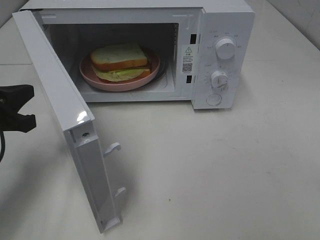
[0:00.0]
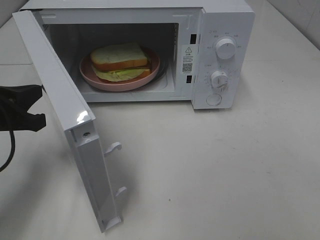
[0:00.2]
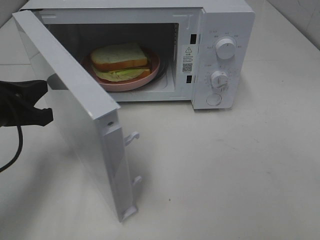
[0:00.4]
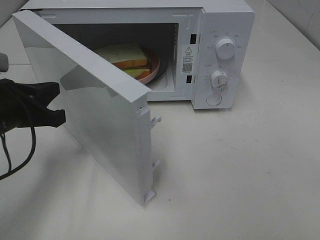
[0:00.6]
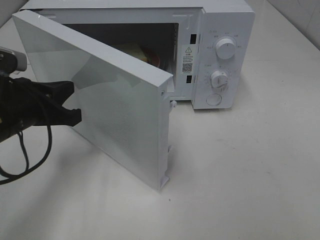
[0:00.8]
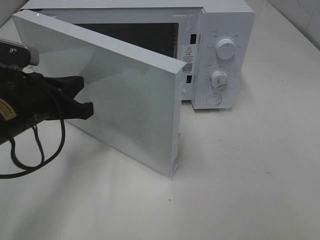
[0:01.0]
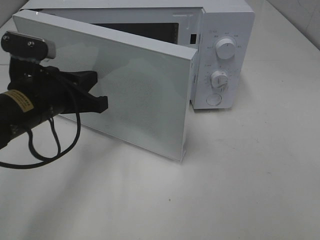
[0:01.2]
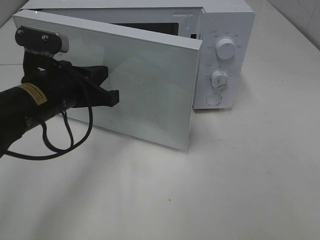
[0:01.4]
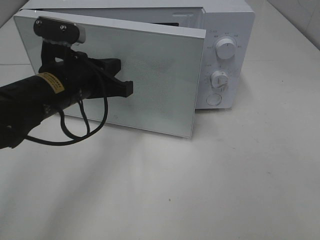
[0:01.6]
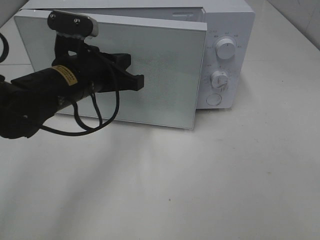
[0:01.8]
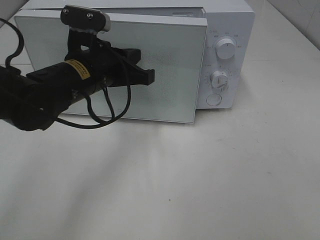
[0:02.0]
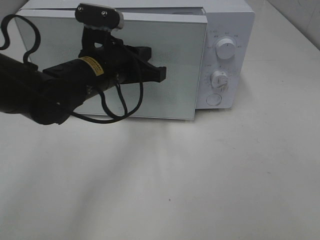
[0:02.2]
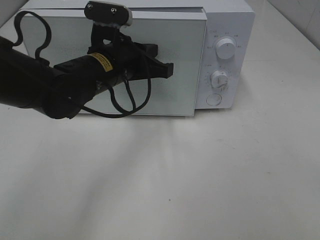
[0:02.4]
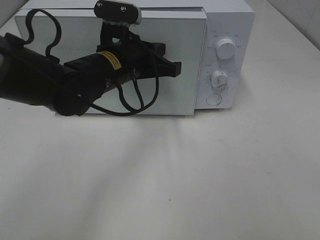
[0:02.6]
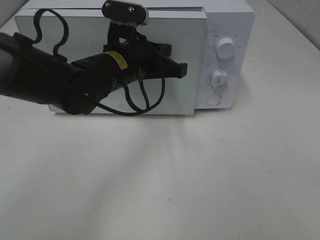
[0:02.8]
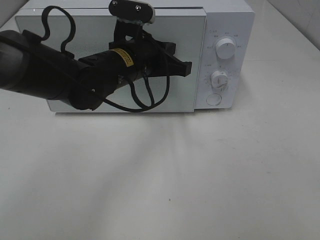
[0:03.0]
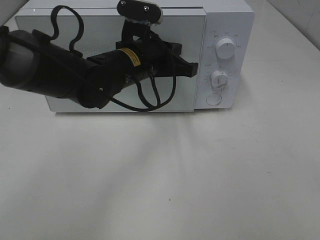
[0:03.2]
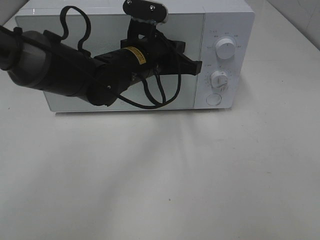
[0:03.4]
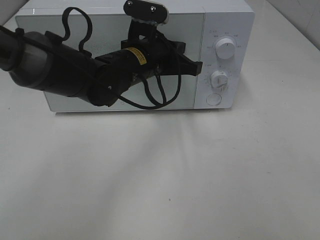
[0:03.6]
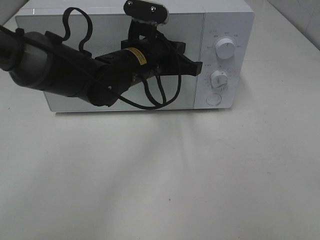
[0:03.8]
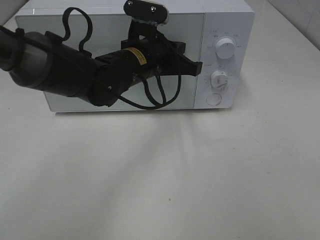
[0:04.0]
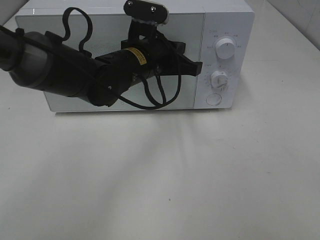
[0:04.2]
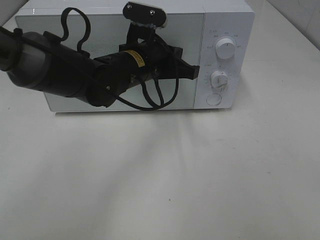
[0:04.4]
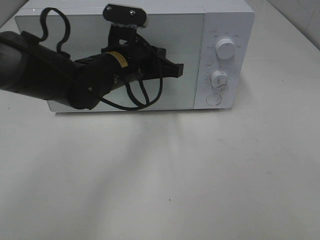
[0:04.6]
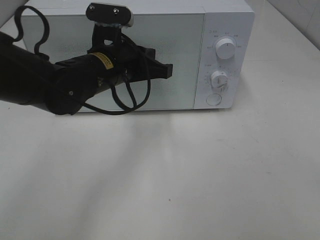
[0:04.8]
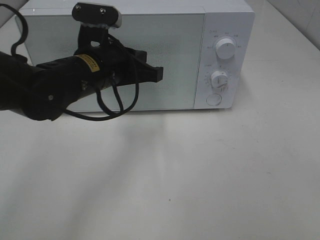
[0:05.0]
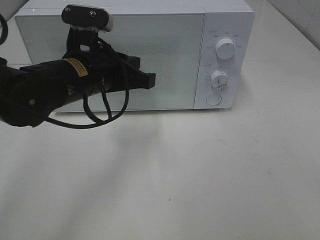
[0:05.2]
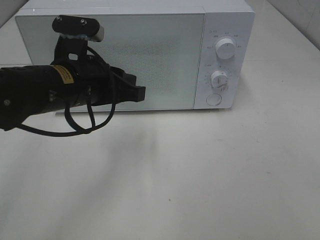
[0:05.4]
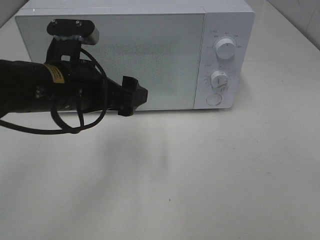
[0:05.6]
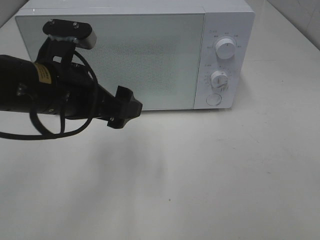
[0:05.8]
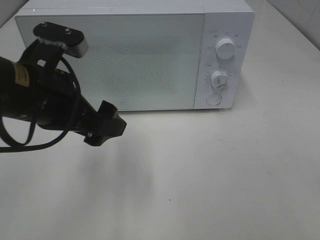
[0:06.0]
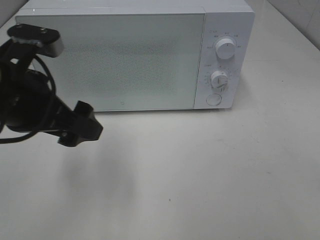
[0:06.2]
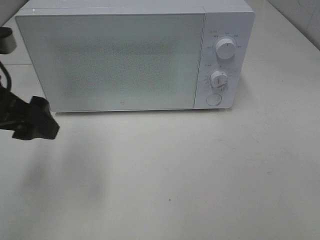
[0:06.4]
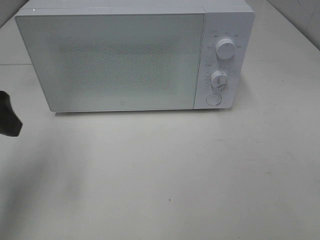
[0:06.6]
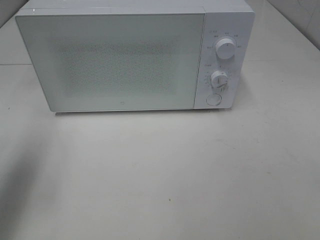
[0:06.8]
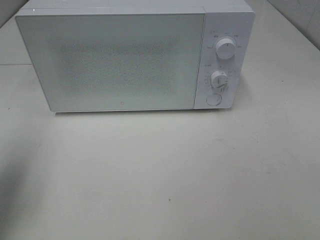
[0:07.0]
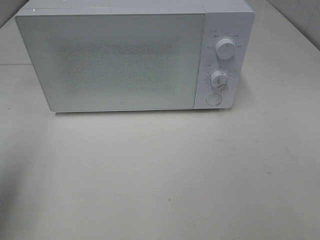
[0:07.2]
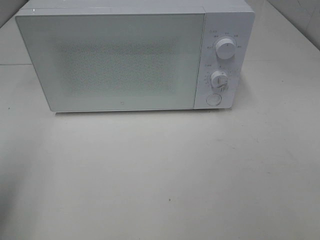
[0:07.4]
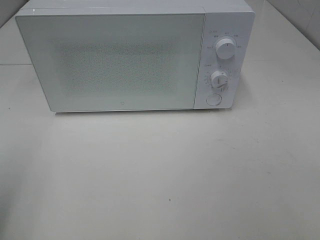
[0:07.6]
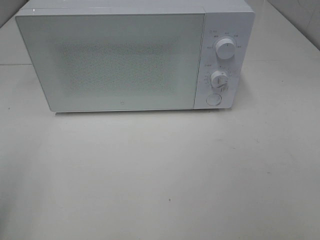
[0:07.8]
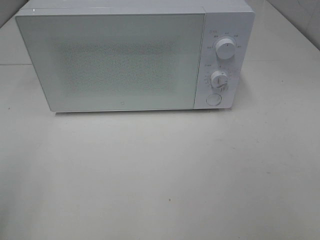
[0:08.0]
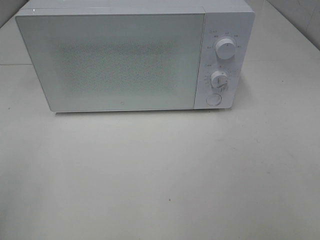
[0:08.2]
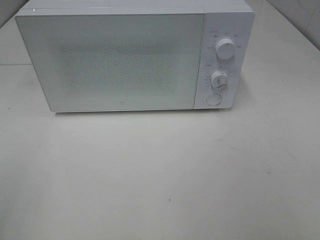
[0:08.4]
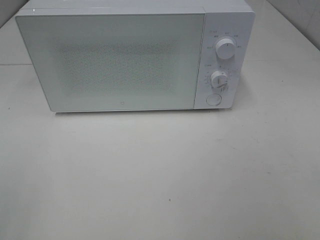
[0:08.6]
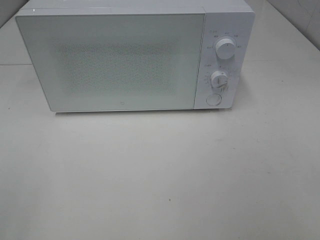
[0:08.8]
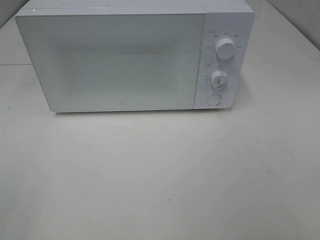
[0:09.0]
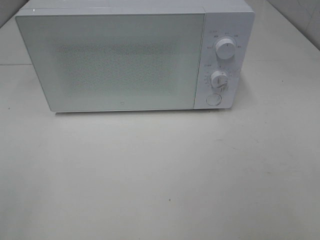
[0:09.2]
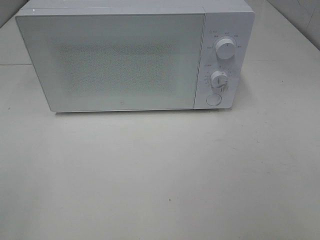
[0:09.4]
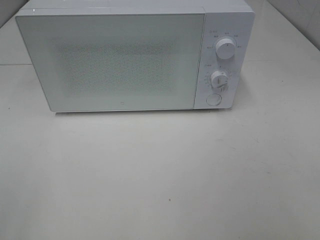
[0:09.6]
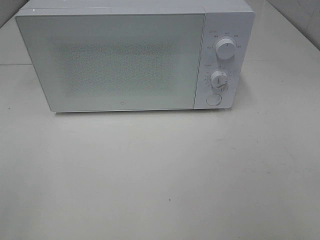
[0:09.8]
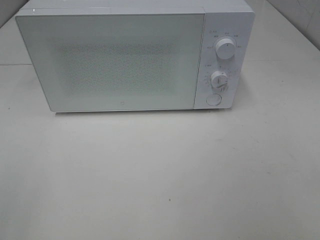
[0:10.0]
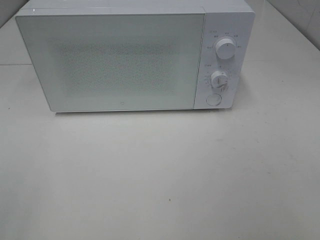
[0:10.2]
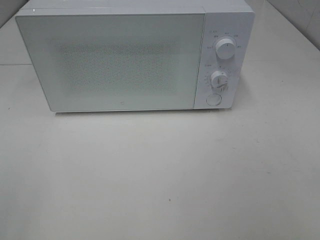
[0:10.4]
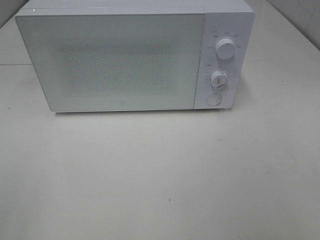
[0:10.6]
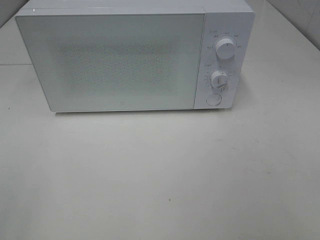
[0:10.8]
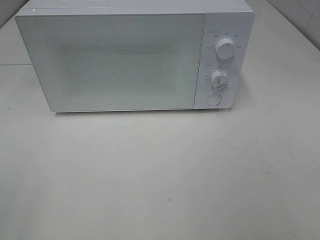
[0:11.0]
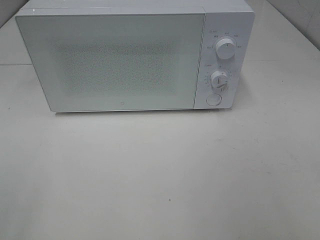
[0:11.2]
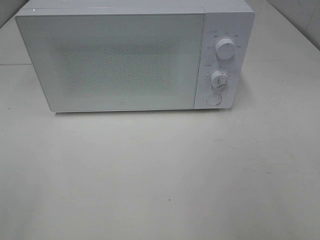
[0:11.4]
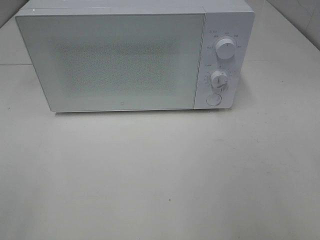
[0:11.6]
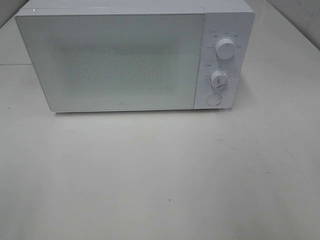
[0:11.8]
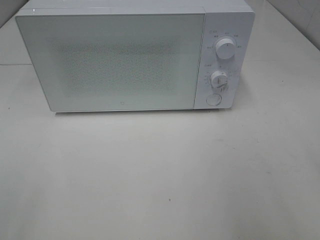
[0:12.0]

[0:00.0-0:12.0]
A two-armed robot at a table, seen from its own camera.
Task of the whole recording: Heat Sandwich.
Step, 0:00.0 to 0:04.8: Left hand: close the microwave door.
0:00.0 to 0:01.6: The left gripper shifts roughly 15 cm to the right.
0:01.6 to 0:03.0: The left gripper moves to the right and forward, about 10 cm.
0:03.0 to 0:04.4: The grippers move only a little.
0:04.4 to 0:06.0: The left gripper heads backward, to the left and upward, covering some 20 cm, and opens up.
0:06.0 to 0:07.6: The left gripper heads to the left and backward, covering roughly 20 cm.
0:09.0 to 0:10.4: Neither gripper changes place.

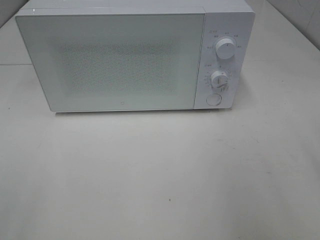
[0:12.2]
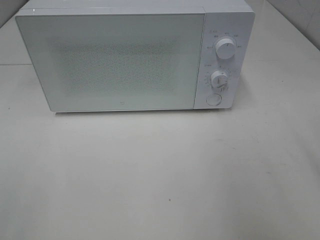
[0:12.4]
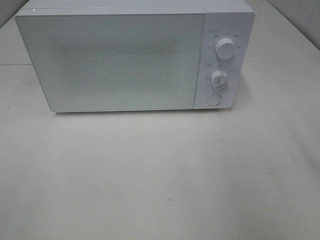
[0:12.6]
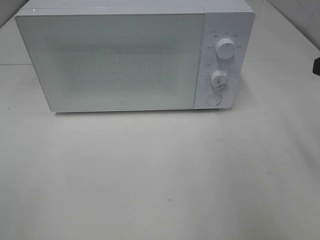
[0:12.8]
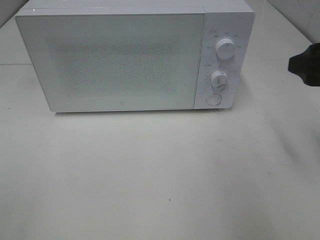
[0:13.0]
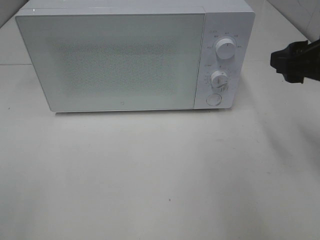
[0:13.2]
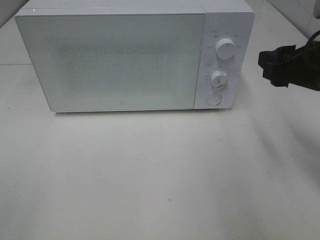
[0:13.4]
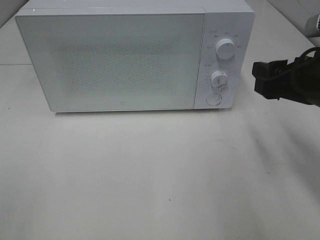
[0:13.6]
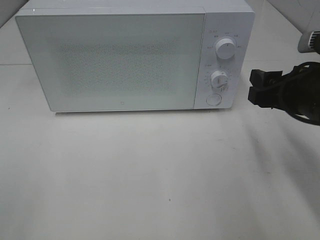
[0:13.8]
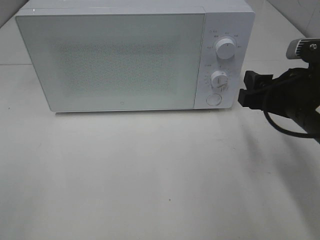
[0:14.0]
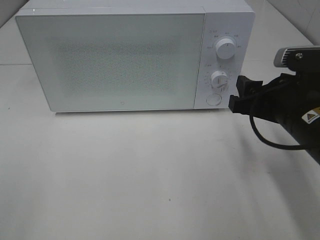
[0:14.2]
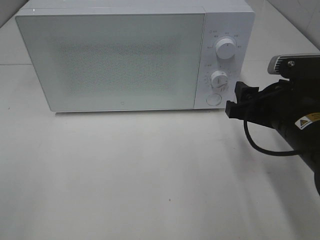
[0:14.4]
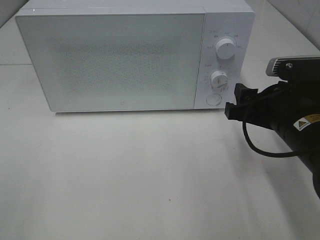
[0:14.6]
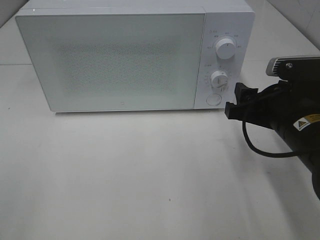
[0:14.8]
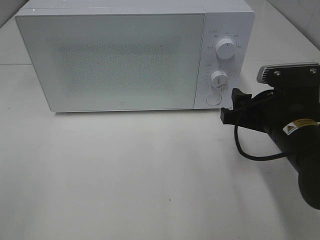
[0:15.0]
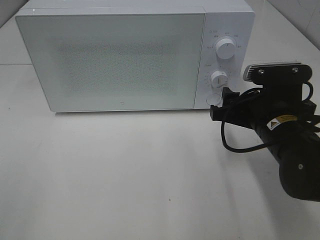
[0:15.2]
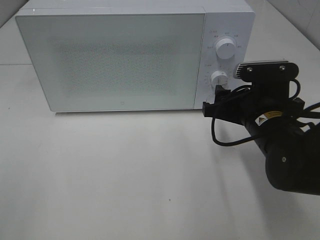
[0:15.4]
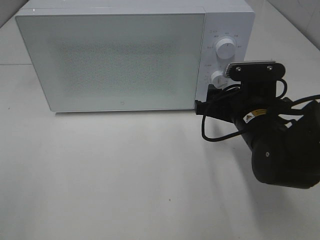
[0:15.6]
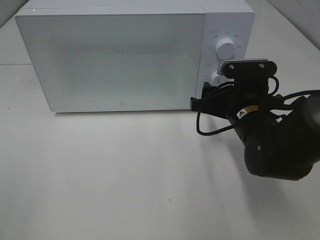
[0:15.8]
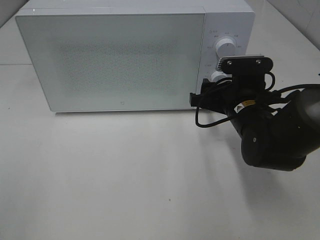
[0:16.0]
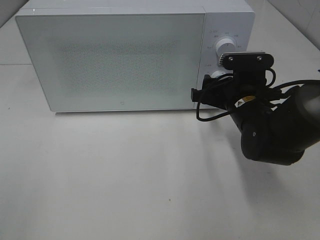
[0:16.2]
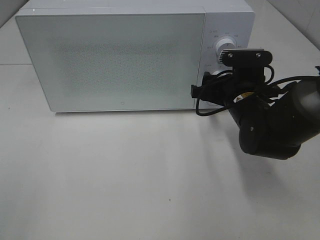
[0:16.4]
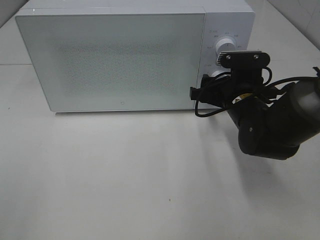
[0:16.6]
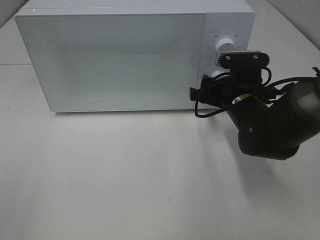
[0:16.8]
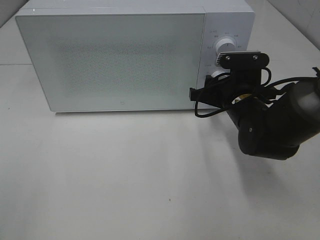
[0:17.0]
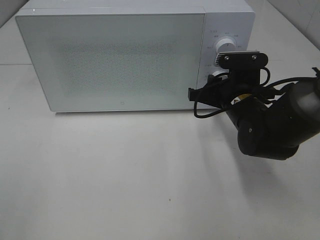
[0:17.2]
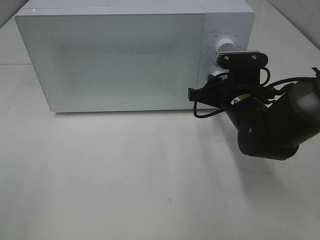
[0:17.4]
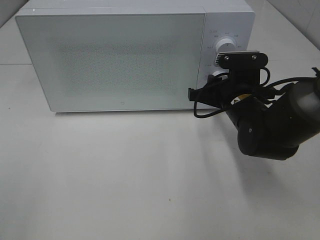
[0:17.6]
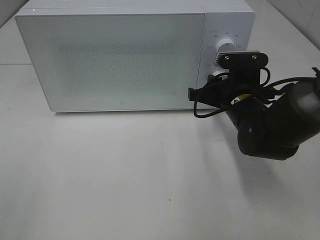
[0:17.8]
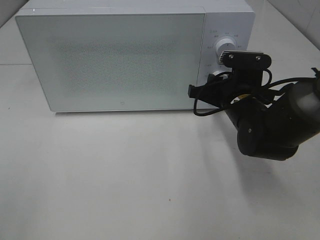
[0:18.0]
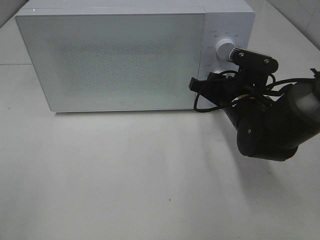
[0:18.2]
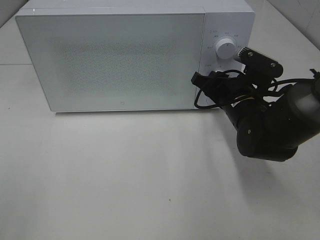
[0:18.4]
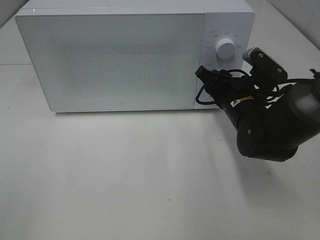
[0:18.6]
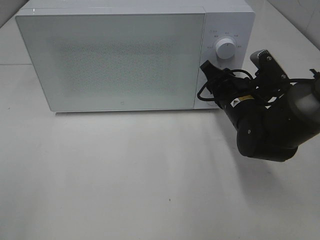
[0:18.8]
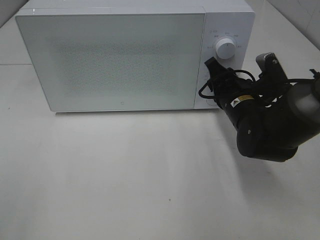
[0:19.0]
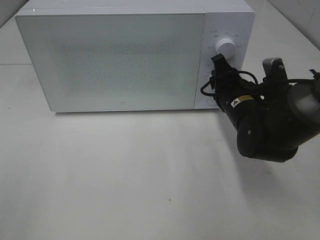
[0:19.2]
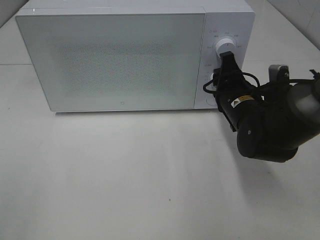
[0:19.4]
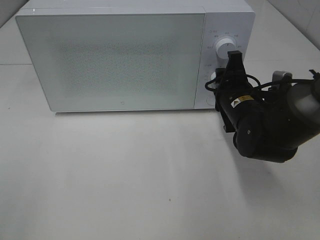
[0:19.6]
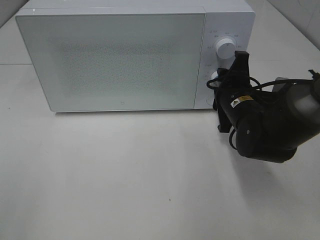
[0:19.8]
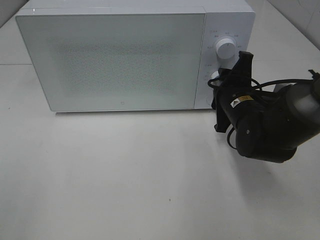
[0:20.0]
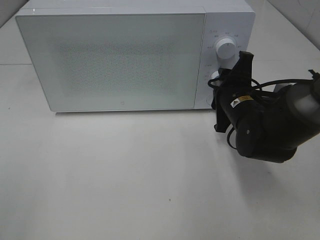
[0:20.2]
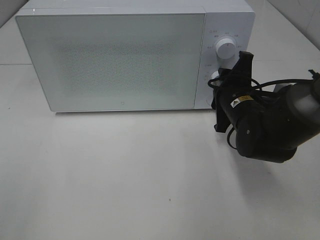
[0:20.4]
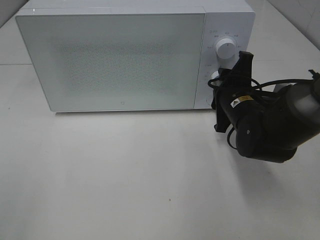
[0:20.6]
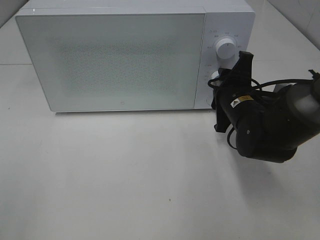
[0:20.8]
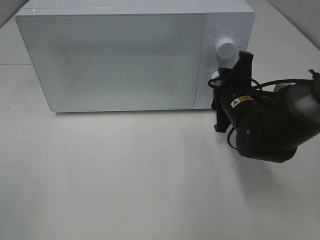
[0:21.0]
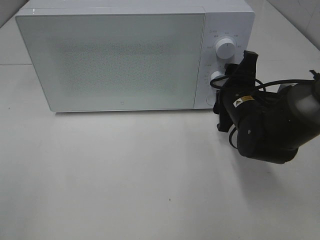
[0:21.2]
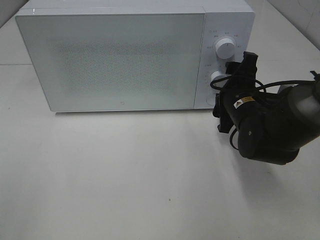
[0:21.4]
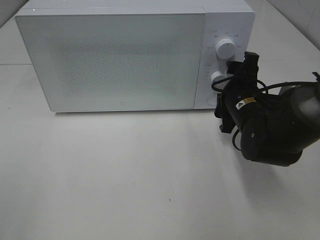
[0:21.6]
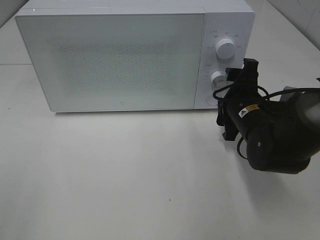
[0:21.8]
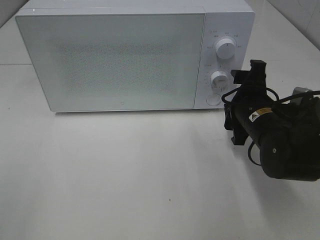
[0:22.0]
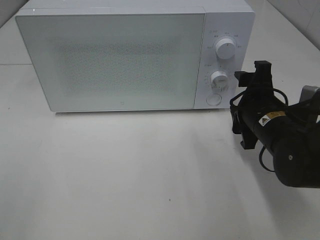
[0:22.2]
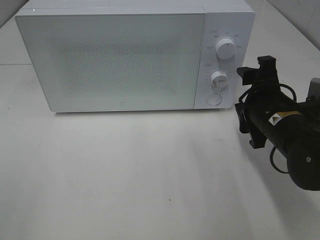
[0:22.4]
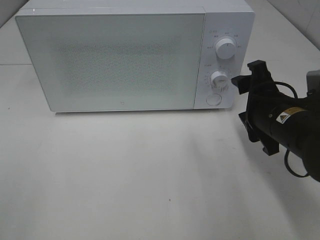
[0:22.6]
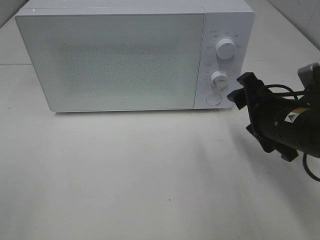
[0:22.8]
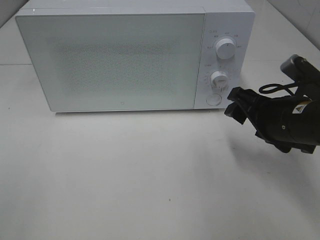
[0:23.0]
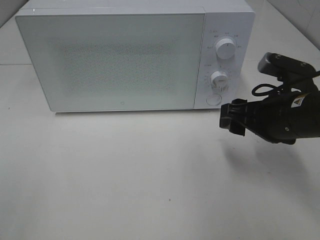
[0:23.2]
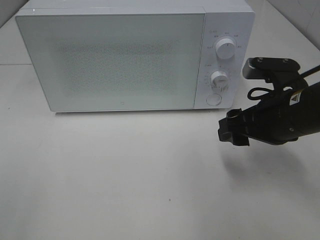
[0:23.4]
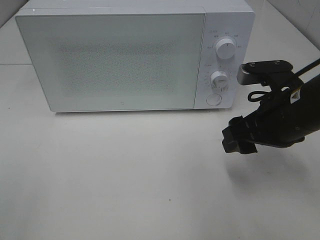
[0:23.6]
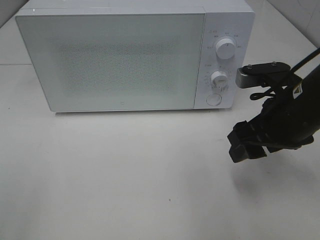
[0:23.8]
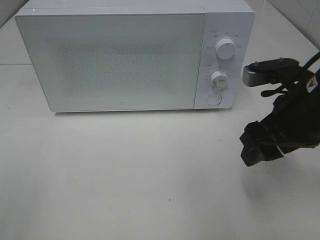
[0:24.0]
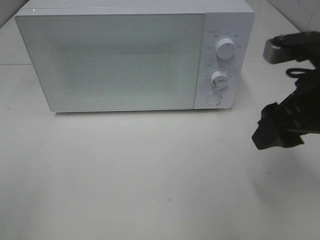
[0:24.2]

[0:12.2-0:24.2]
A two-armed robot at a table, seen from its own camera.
Task of the whole recording: Heat Sandwich.
Step, 0:12.2 to 0:21.8: Right hand: twist timer button.
0:12.2 to 0:13.8: The right gripper goes about 15 cm downward, forward and to the left.
0:13.8 to 0:15.2: The right gripper travels downward by approximately 5 cm.
0:15.2 to 0:16.6: The right gripper travels forward by about 10 cm.
0:16.6 to 0:18.2: The grippers stay close to where they were, moving slightly.
0:19.8 to 0:21.2: The grippers make only small movements.
0:21.2 to 0:22.6: The right gripper shifts some 5 cm backward.
0:22.6 to 0:24.2: The right gripper goes roughly 10 cm upward.
